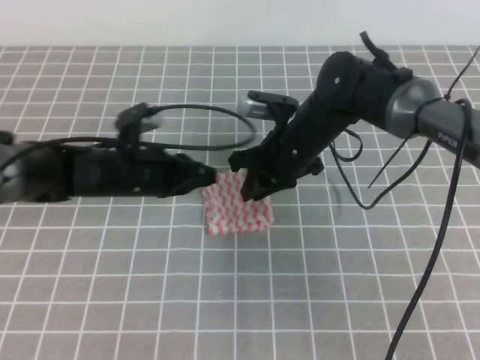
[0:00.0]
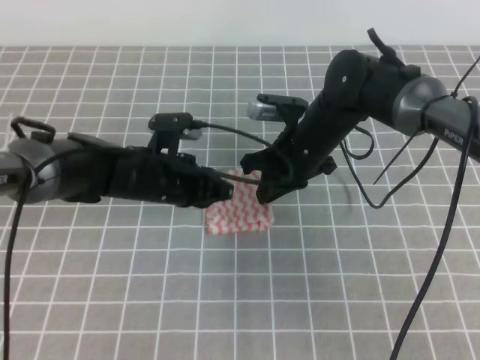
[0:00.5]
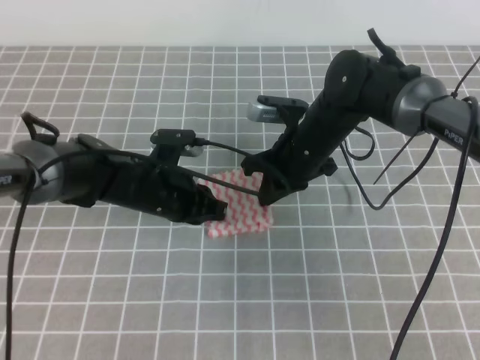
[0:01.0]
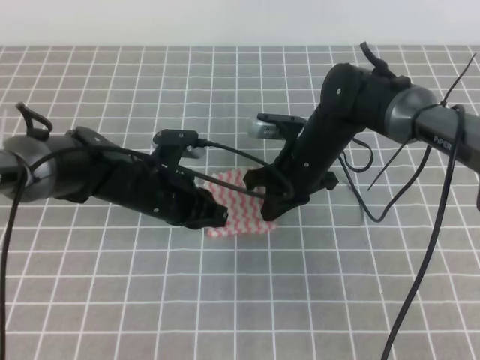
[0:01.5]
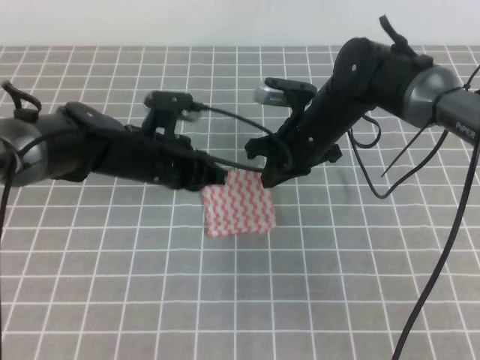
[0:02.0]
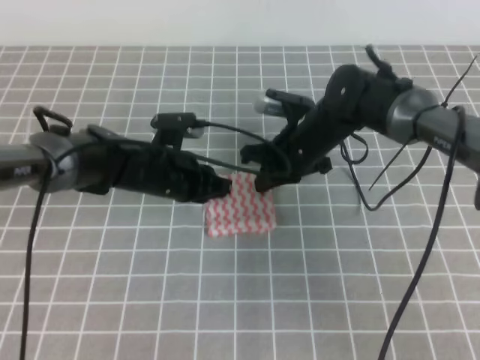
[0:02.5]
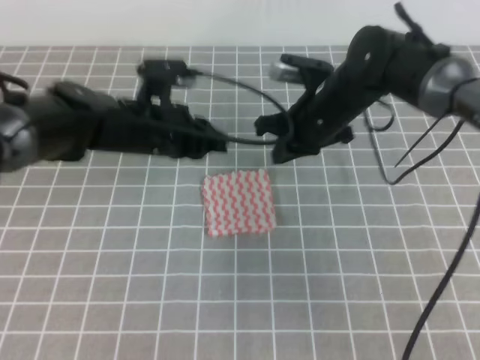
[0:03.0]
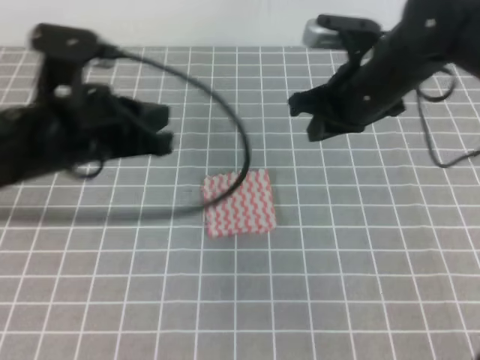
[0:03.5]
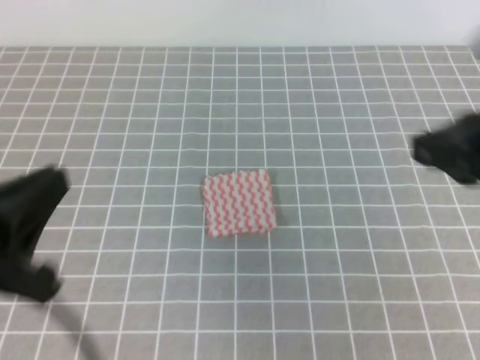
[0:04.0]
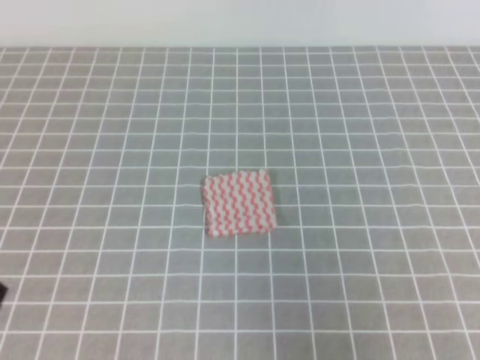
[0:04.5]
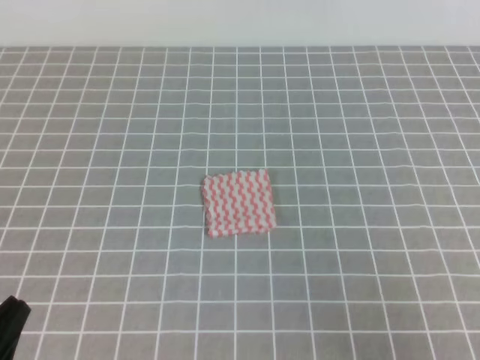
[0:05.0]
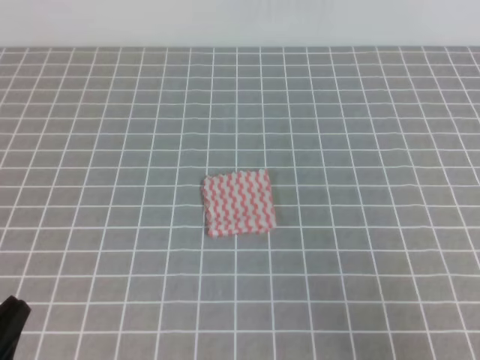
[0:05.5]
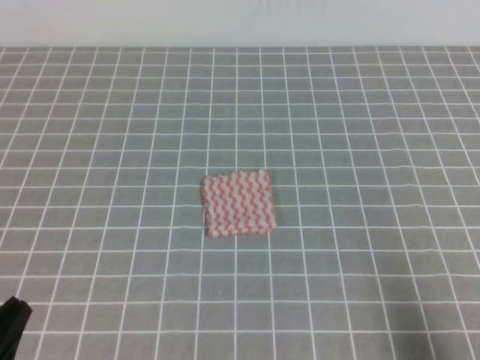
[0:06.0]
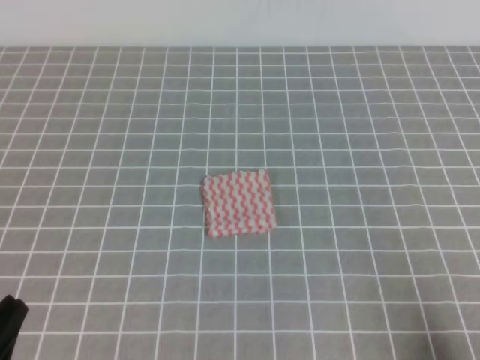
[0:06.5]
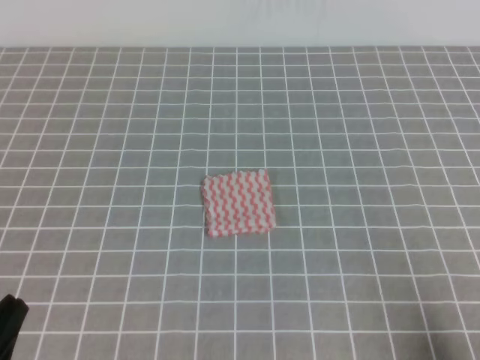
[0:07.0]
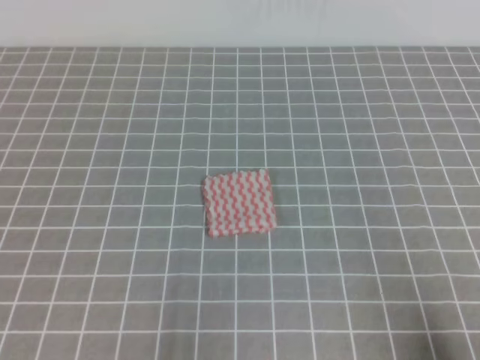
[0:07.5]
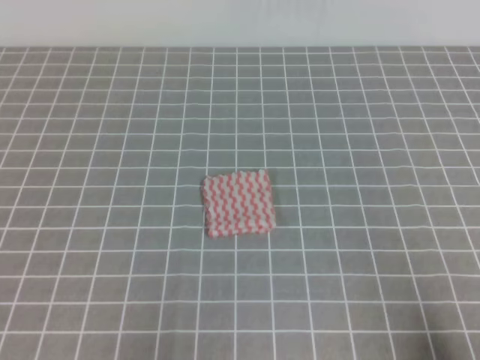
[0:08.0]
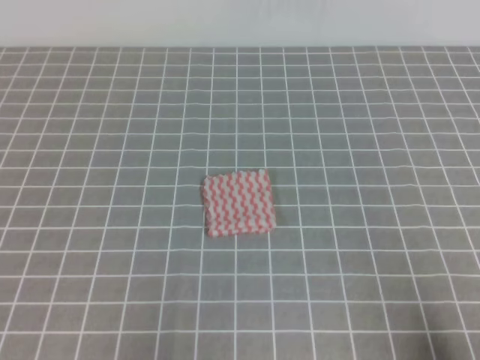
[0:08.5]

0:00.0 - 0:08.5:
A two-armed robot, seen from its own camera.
Step, 0:00.0 - 0:08.5: Fold the towel.
0:00.0 - 0:02.0: The right gripper closes up.
0:02.0 - 0:04.0: The left gripper shifts approximately 30 cm backward, upward and to the left. Meanwhile the right gripper heads backward, upward and to the right, covering about 30 cm.
0:04.0 - 0:06.5: The right gripper goes about 25 cm downward, backward and to the right, while the left gripper goes about 15 cm downward and backward.
